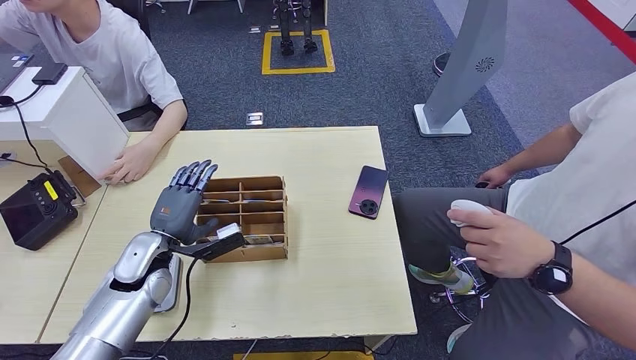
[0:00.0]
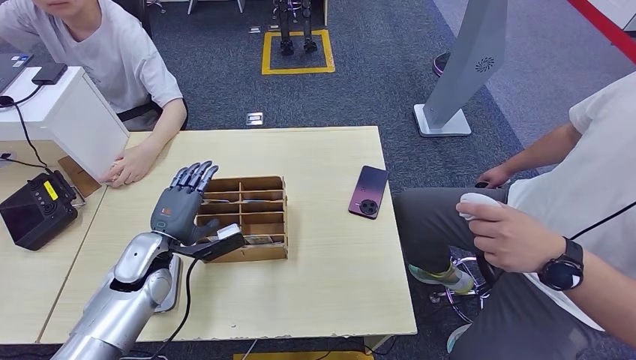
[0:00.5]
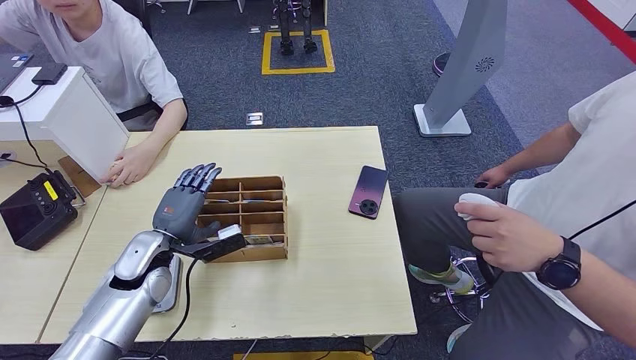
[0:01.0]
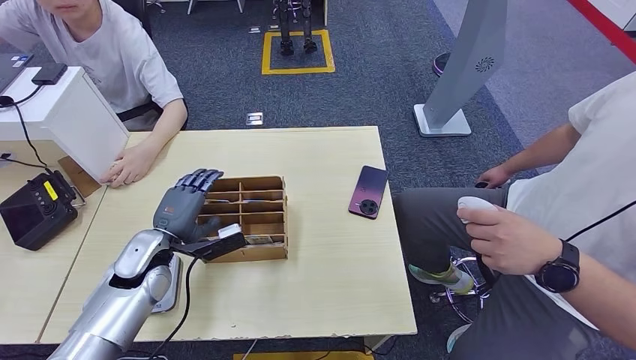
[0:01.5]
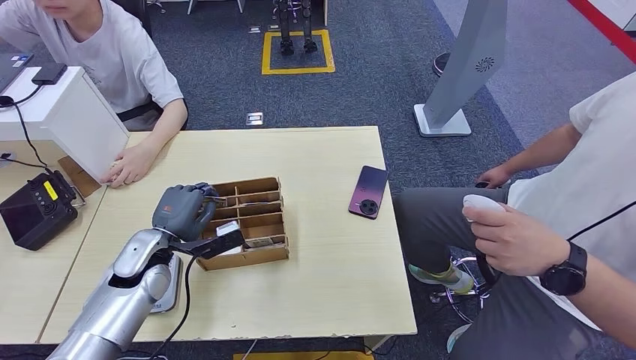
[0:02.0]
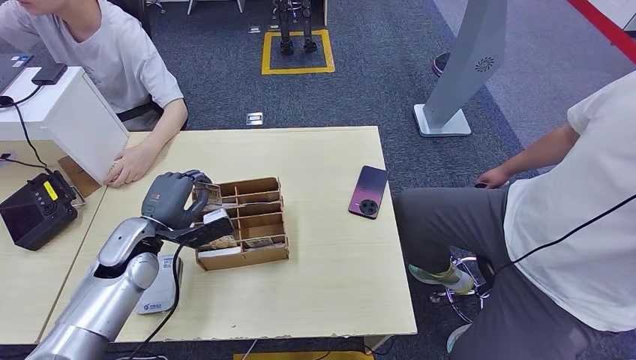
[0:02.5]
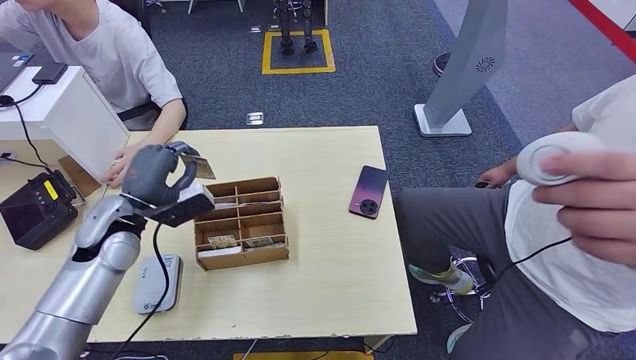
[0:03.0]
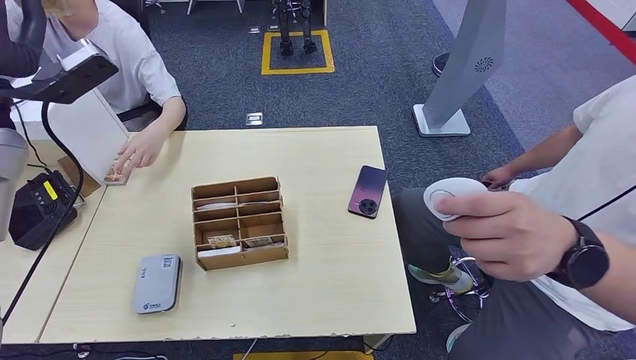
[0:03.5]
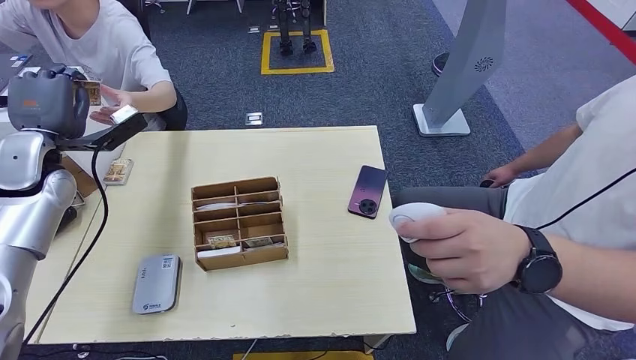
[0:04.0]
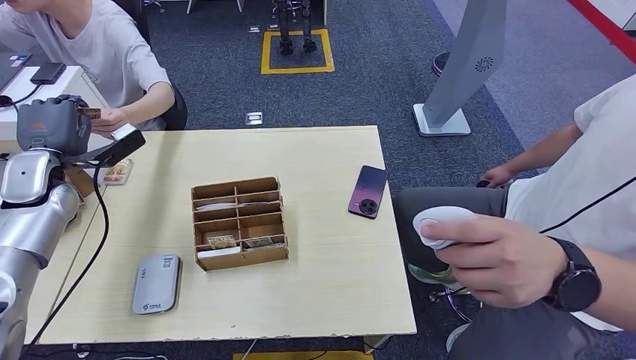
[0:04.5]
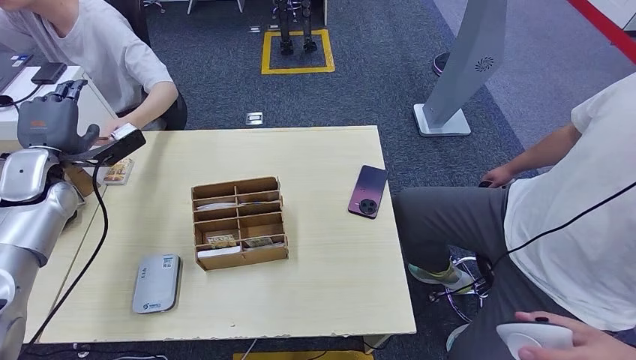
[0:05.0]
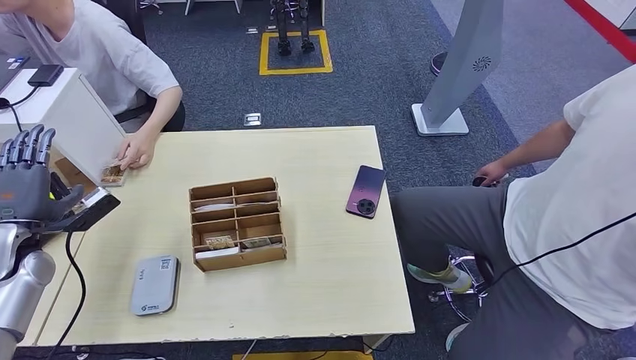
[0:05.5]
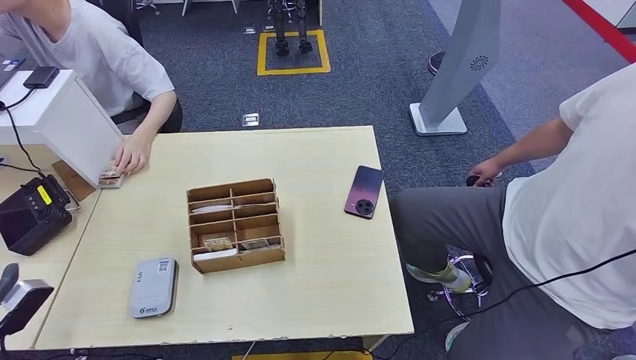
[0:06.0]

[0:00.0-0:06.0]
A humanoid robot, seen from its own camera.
Step, 0:00.0 to 0:02.5: Pick up the room key from the key card box.
Step, 0:03.5 to 0:06.0: Hand the room key to the person.
0:00.0 to 0:02.0: The hands stay close to where they were, moving slightly.

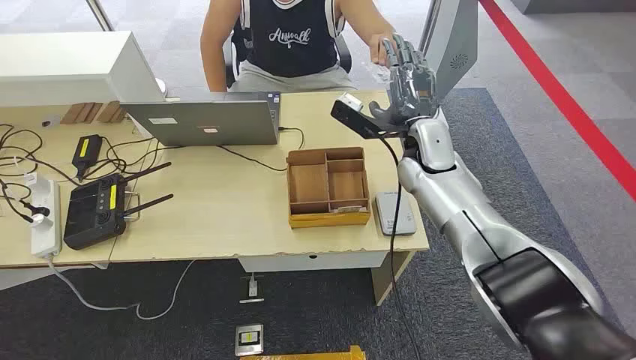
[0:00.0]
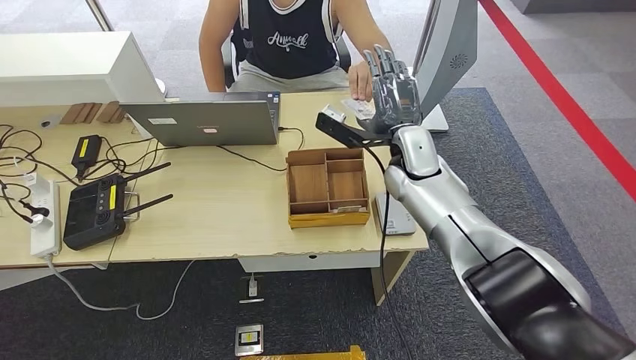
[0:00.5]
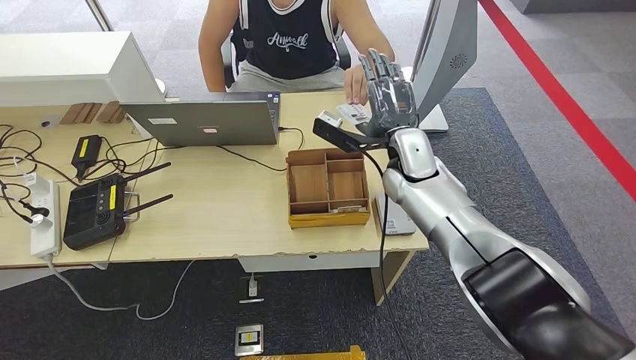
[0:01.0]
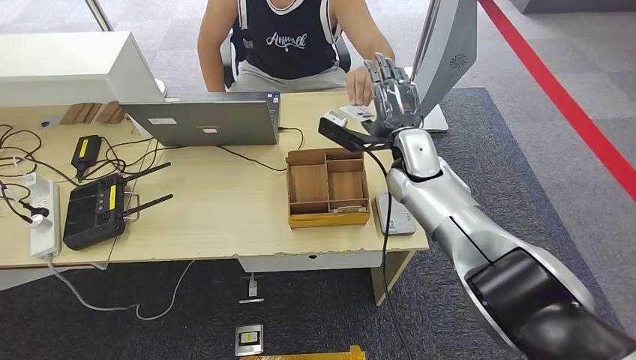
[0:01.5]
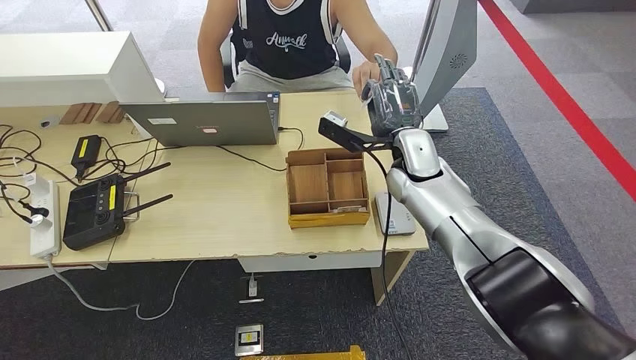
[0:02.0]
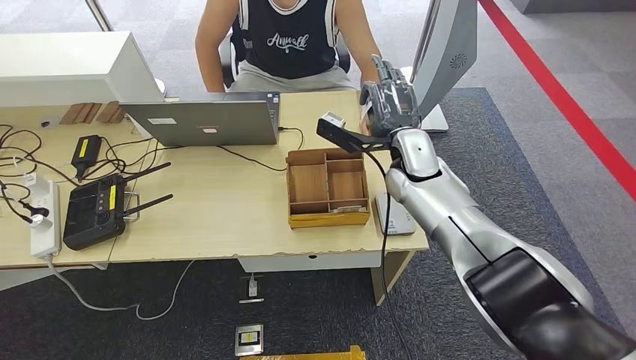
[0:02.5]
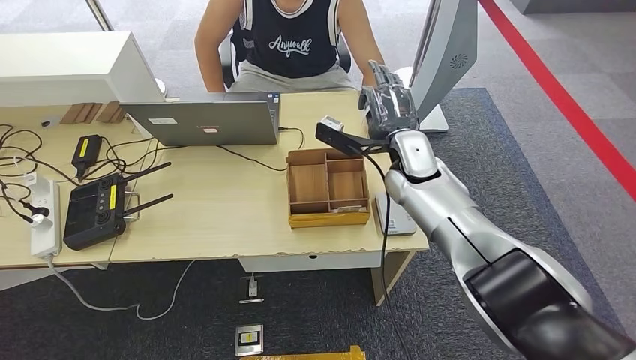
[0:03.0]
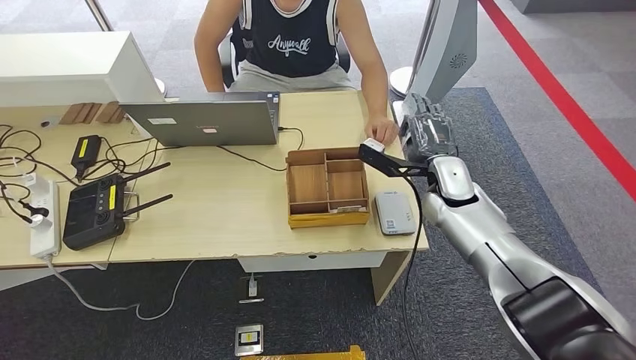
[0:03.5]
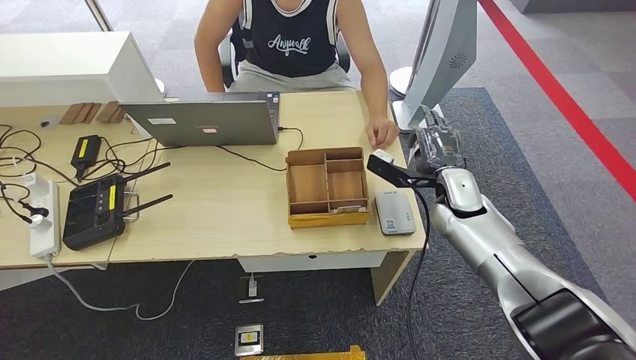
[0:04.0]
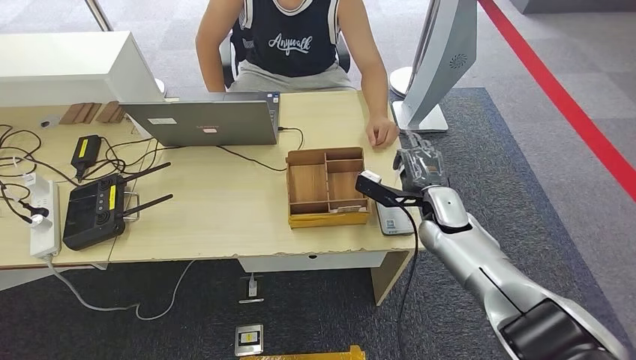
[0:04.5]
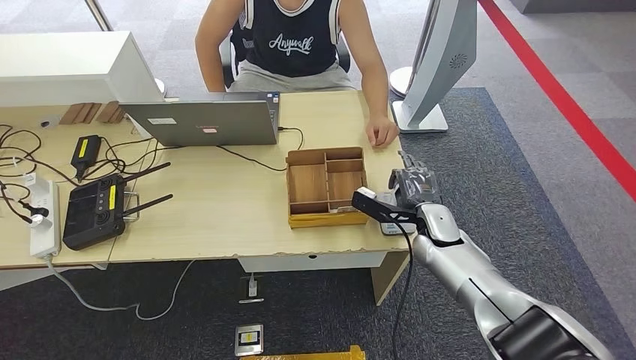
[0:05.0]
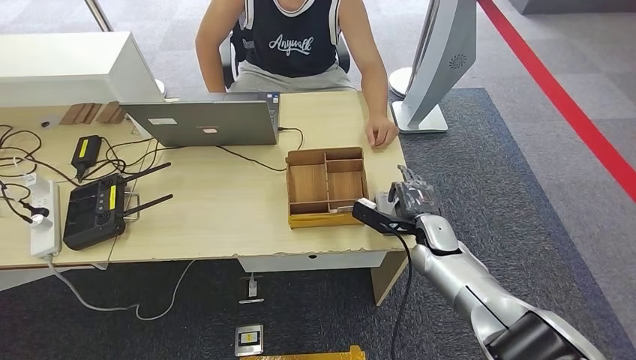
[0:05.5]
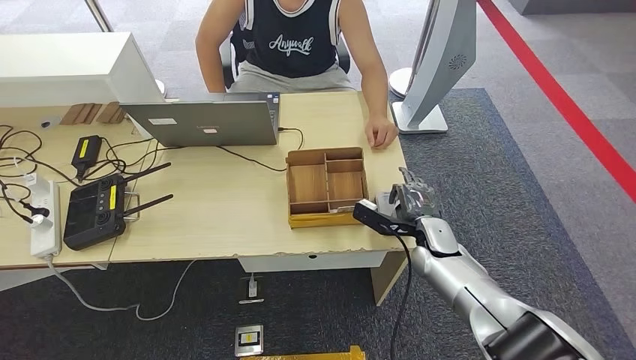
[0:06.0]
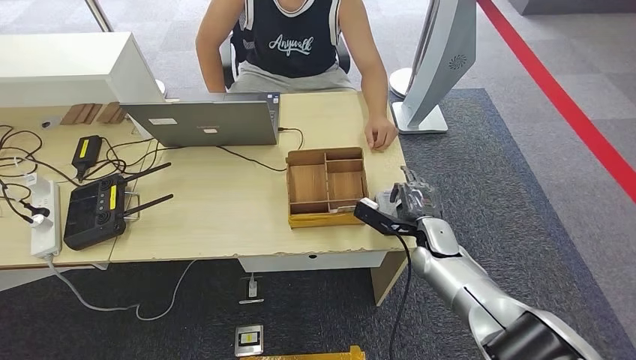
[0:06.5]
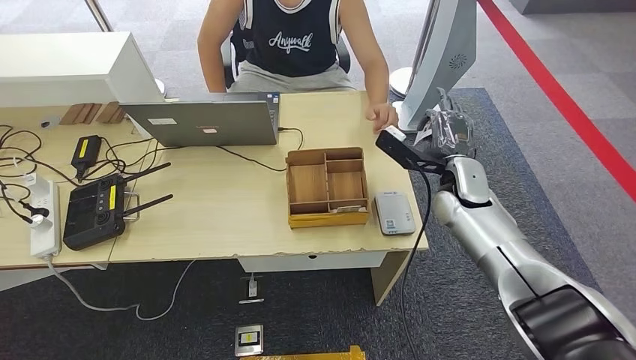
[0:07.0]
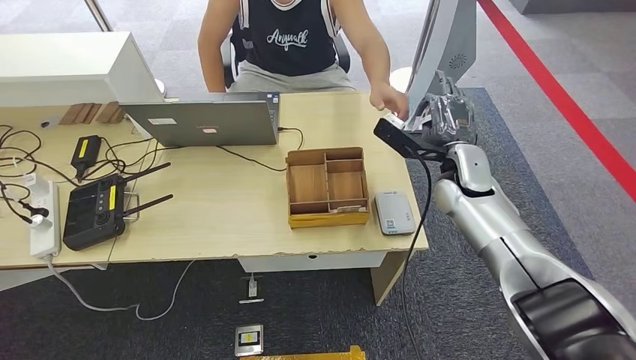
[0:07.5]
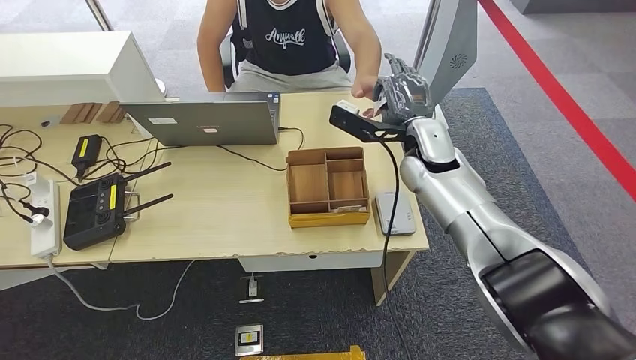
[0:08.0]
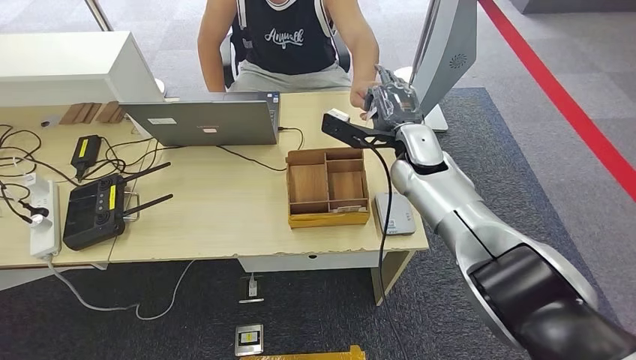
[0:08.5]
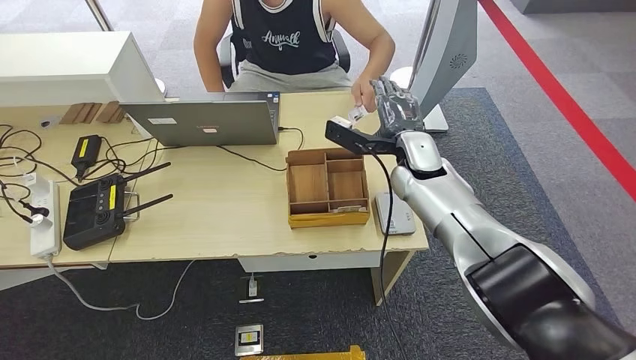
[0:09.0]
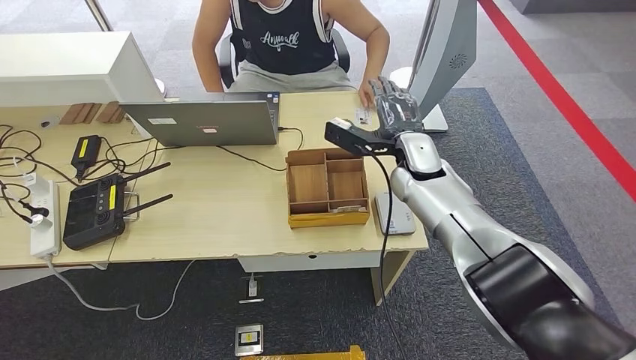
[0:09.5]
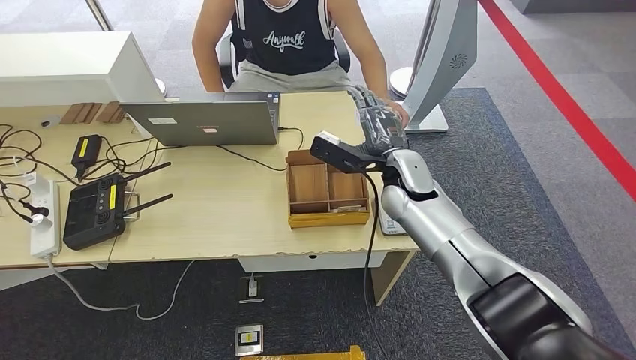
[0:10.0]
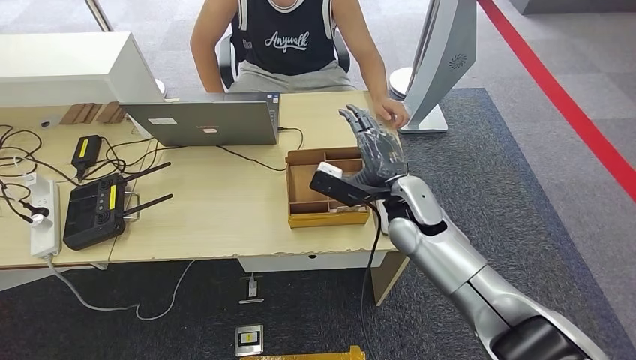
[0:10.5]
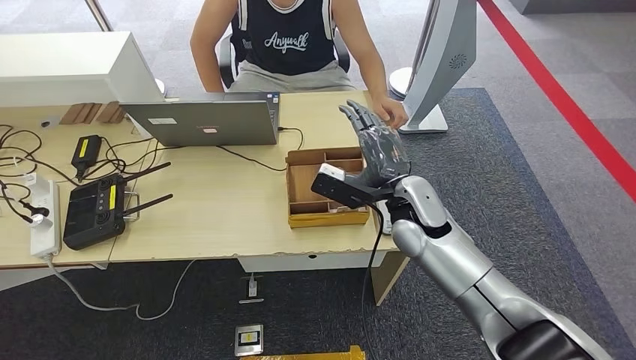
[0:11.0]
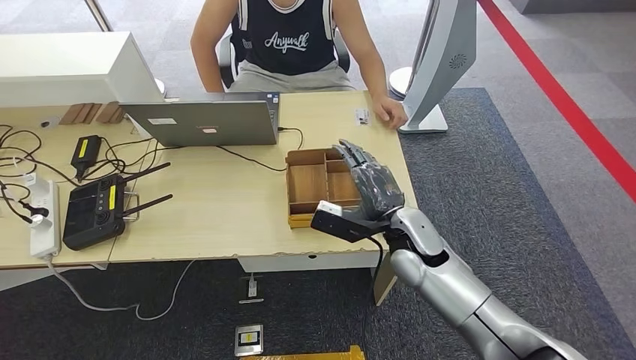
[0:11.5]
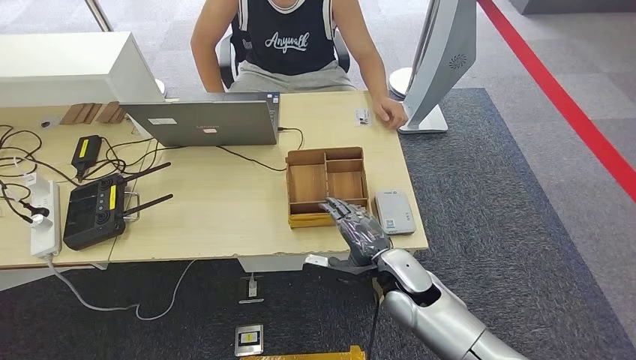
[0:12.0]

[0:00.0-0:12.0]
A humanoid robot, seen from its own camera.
Step, 0:00.0 to 0:02.0: Take the ID card from the person's hand.
Step, 0:02.5 to 0:06.5: Place the ID card on the card reader.
Step, 0:07.0 to 0:10.0: Hand the ID card to the person.
0:02.0 to 0:04.0: The right hand heads to the right and downward, covering roughly 10 cm.
0:04.0 to 0:06.0: The right hand shifts about 10 cm downward.
0:06.0 to 0:08.0: The right hand goes approximately 20 cm upward and forward.
0:08.0 to 0:10.0: The right hand changes place by about 5 cm.
0:10.0 to 0:12.0: The right hand shifts approximately 20 cm backward and downward.

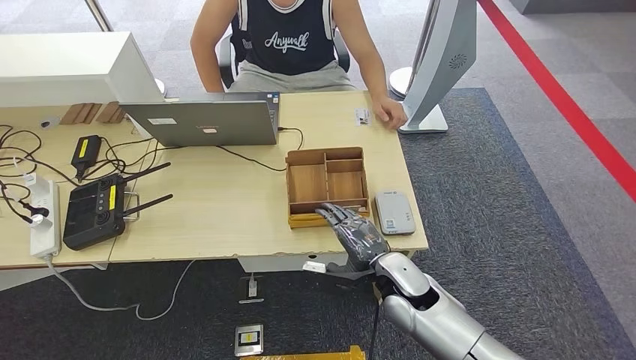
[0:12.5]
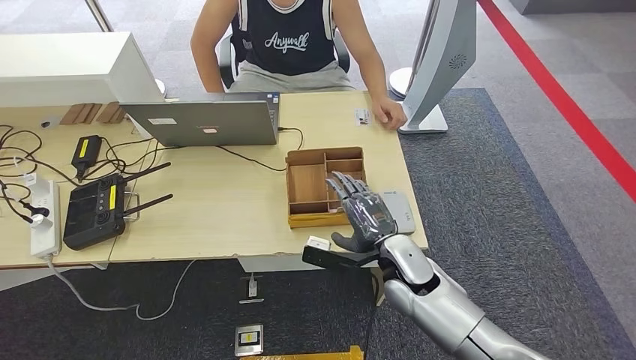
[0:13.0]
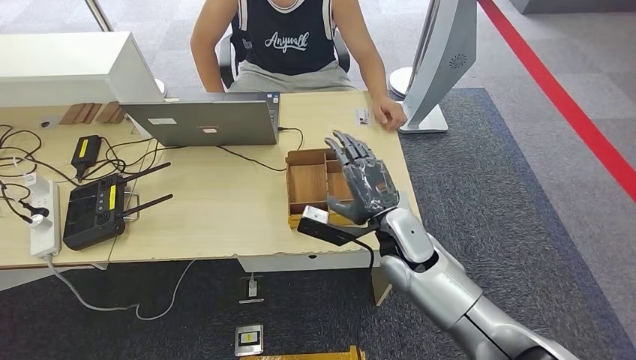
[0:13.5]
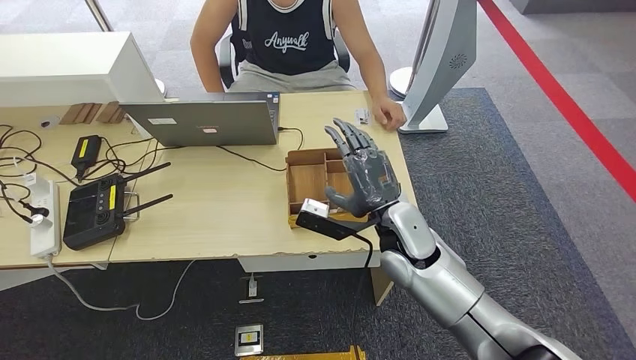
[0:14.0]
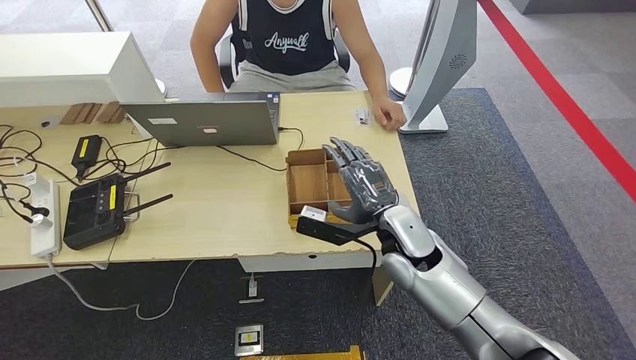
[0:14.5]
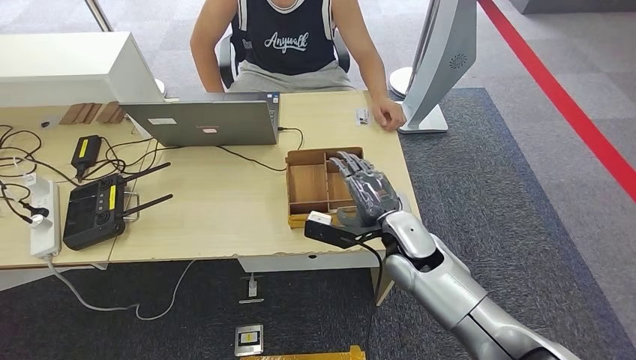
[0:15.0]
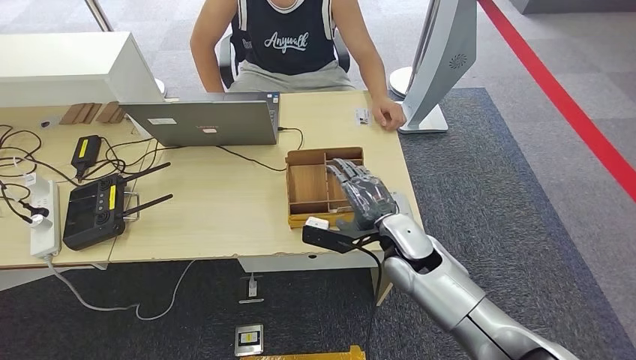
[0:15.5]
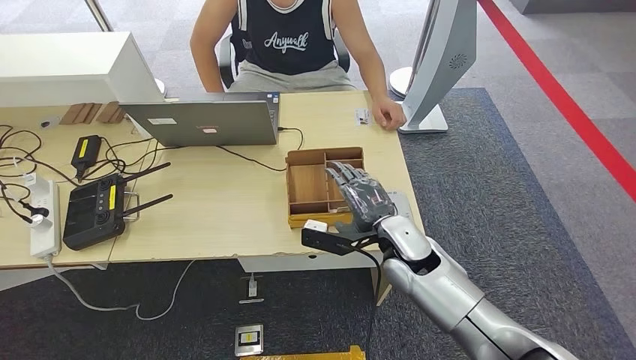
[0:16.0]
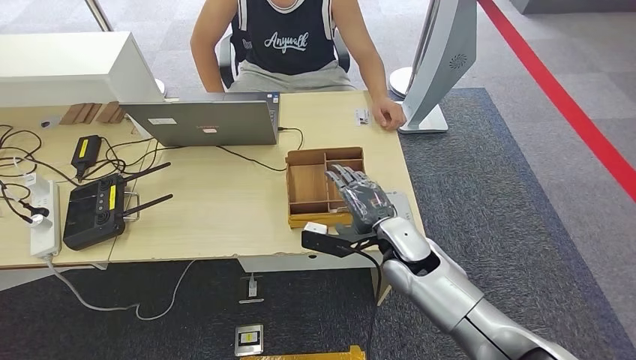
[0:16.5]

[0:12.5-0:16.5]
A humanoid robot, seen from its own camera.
0:12.5 to 0:14.5: The right hand shifts roughly 10 cm upward.
0:14.5 to 0:16.5: There are only small adjustments of the hands.
